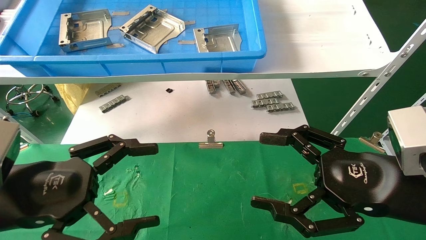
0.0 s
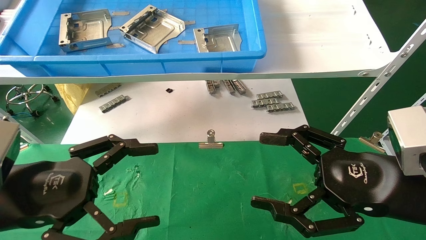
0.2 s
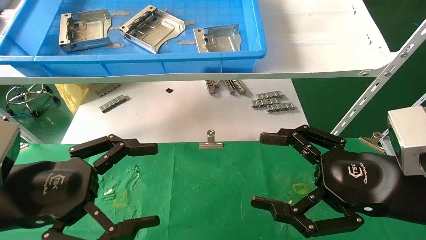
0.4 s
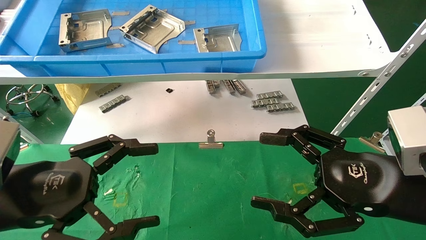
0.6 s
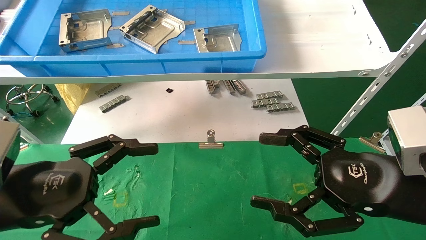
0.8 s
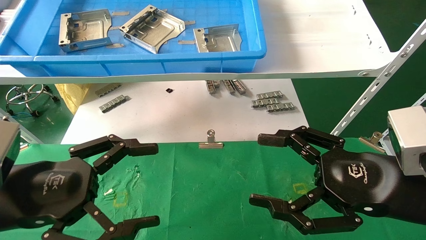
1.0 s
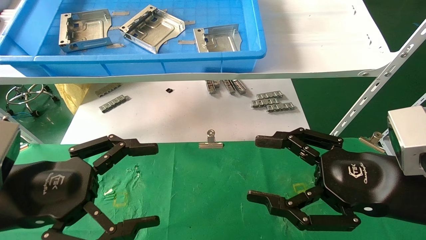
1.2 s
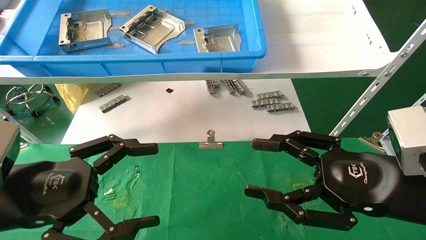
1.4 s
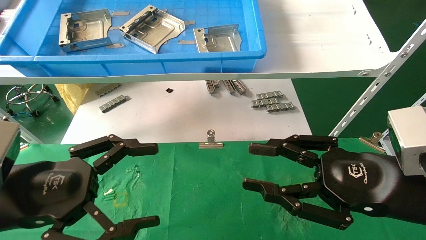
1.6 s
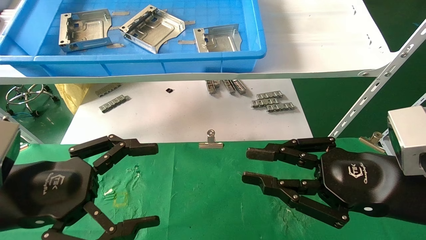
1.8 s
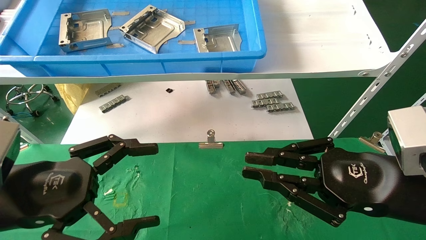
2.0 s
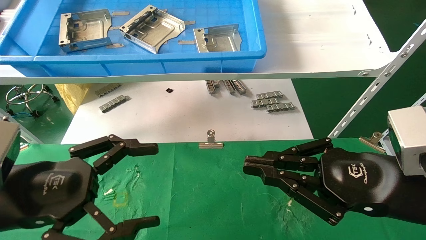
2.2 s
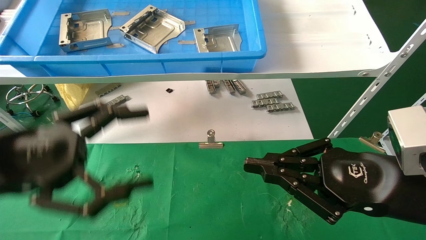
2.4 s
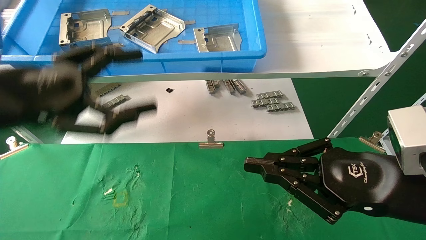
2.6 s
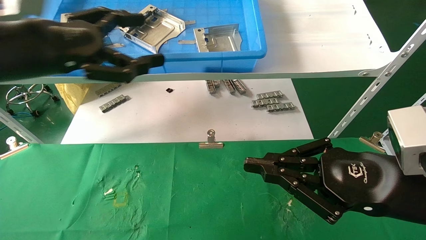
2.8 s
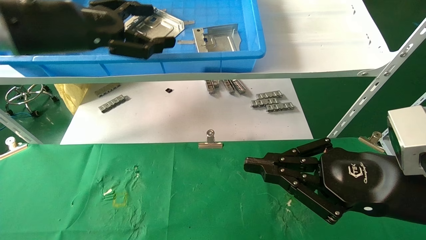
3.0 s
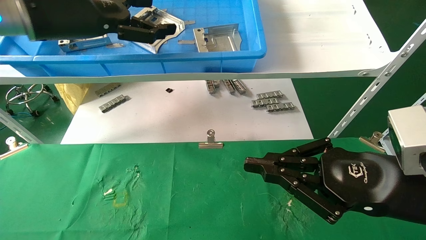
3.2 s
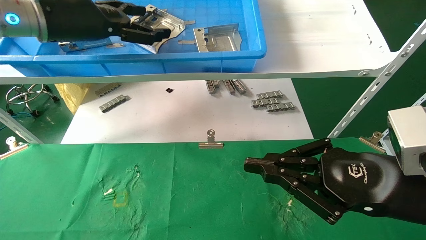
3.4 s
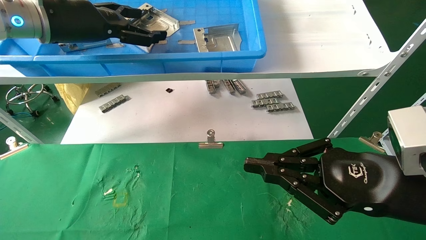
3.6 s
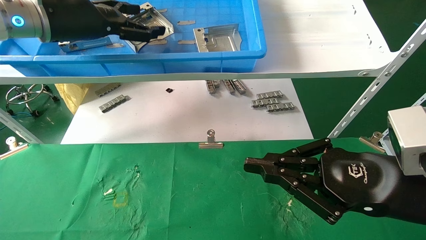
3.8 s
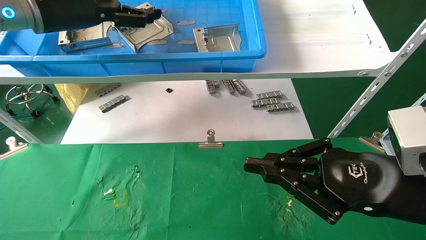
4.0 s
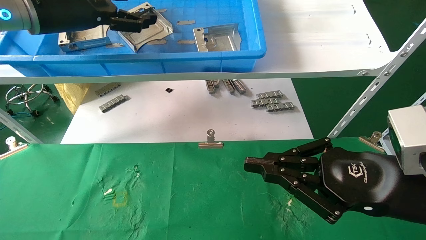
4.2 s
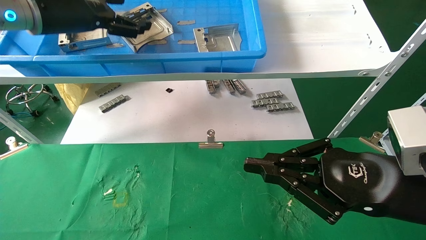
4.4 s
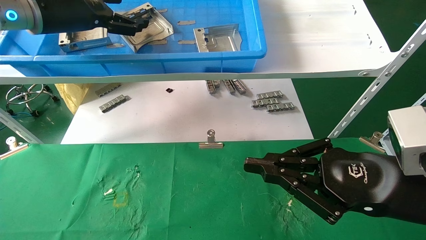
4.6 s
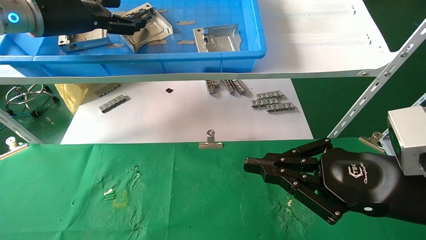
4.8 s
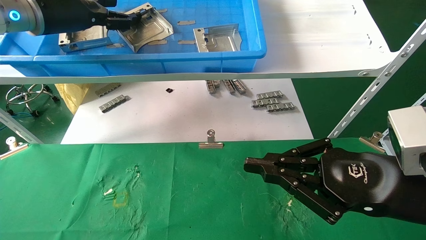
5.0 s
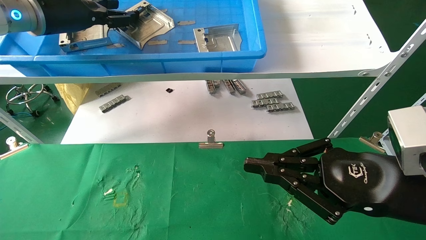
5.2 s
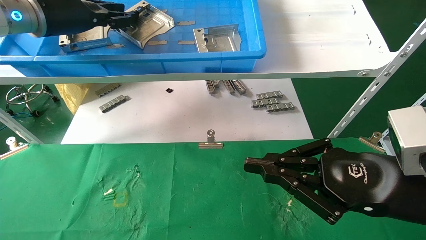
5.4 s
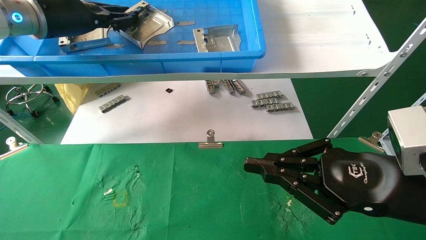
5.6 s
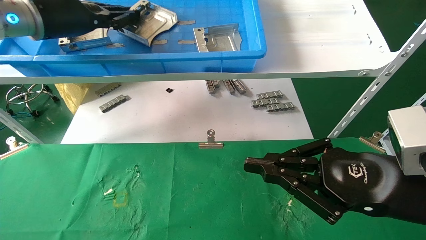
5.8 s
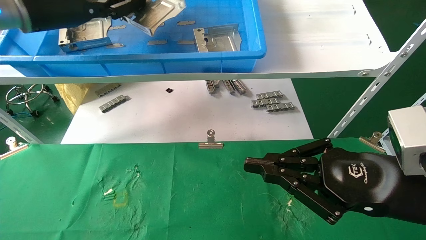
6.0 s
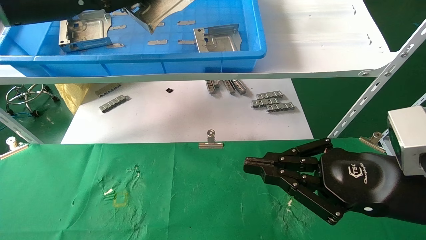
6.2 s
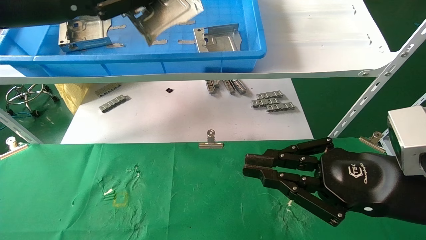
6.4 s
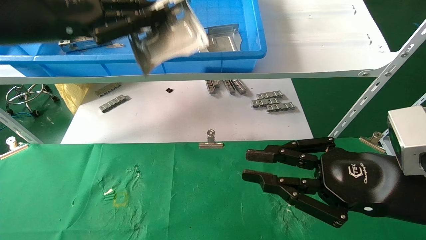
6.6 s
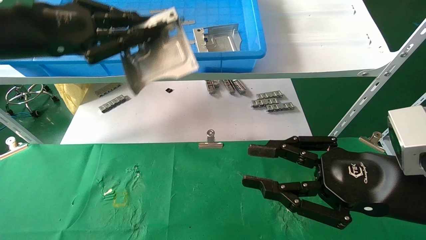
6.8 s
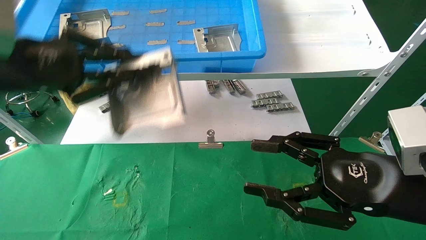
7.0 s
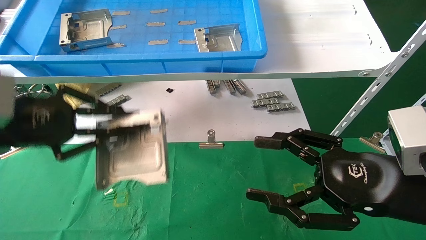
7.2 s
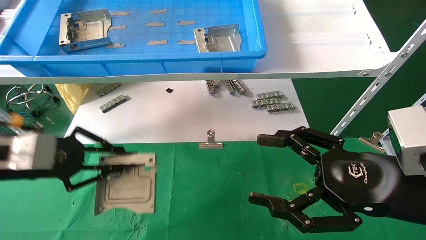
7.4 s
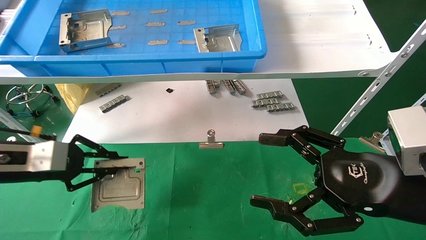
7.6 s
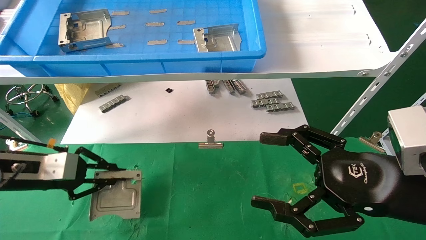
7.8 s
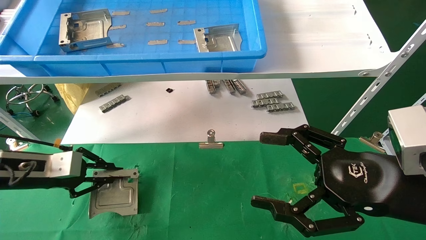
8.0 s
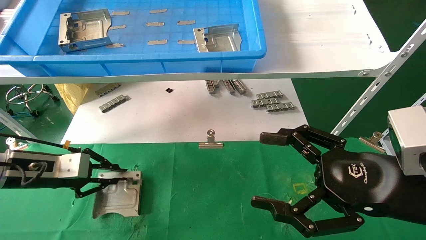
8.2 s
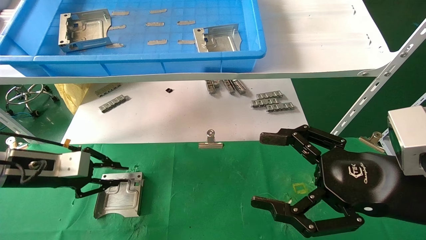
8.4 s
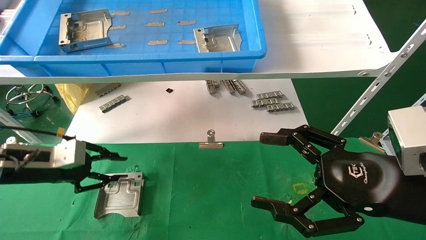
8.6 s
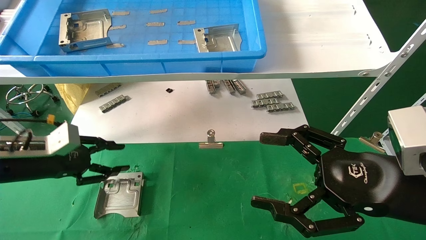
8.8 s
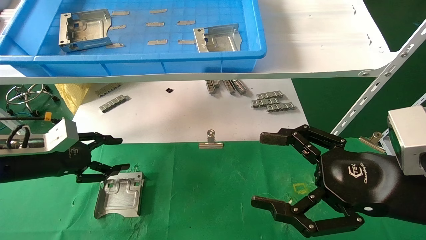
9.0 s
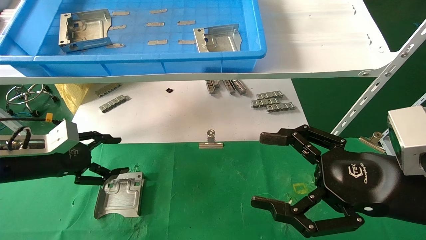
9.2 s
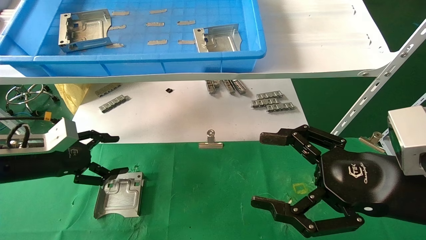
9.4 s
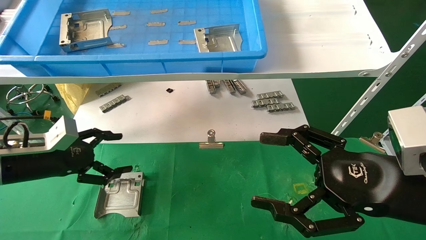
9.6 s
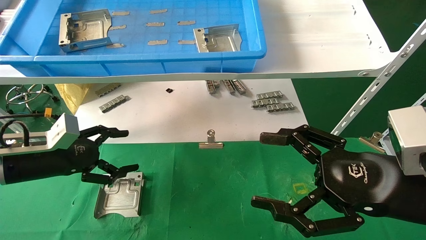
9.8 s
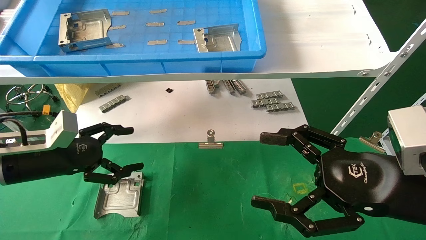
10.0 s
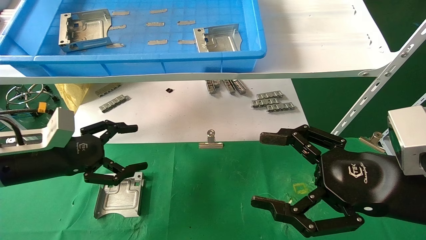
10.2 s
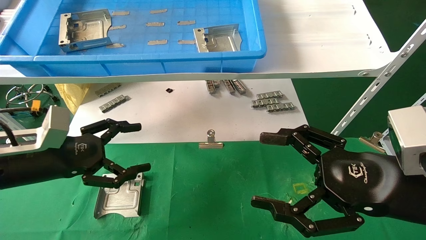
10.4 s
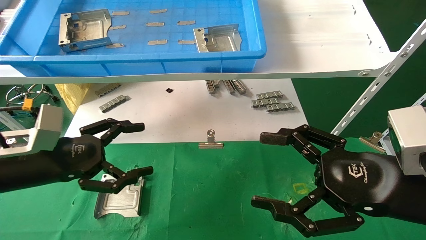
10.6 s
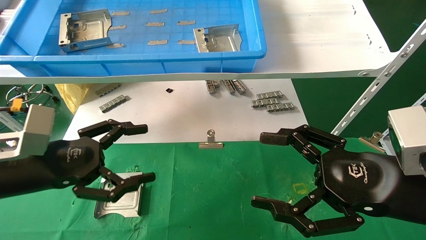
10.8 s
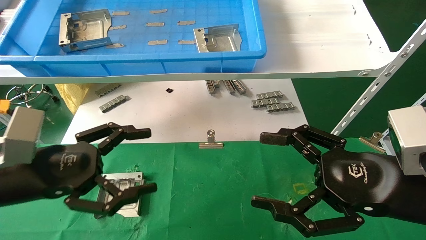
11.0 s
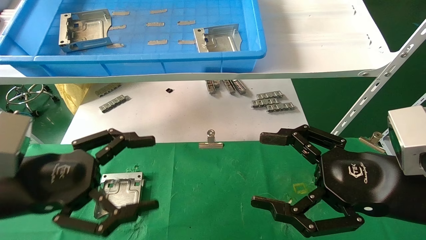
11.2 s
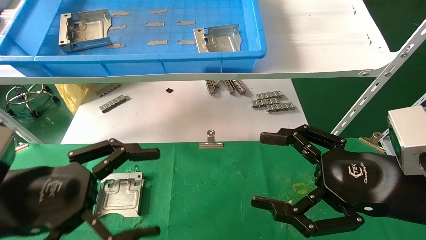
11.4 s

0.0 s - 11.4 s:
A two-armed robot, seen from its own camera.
Task of the whole recording: use the mechanical arm to pick up the parts and place them on the table.
Step, 2.4 s - 5.8 s: Pick up the hard drive bracket from the feeding area.
Step, 6.0 s - 8.6 s: Place the hard drive bracket into the box.
0.0 s - 1.4 s: Both grippers stay about where they are.
1.4 s - 2.8 s: The right gripper closes. Meanwhile the left gripper shifts roughly 20 cm upward and forward.
2.8 s - 4.2 s: The left gripper moves forward and upward, approximately 15 cm.
4.2 s - 5.6 s: The left gripper closes.
5.6 s - 7.2 s: The right gripper opens up; the left gripper heads backward and downward, covering approximately 20 cm.
7.2 s - 8.6 s: The right gripper opens its fingers. The left gripper heads downward and forward, covering about 15 cm.
8.6 s - 10.0 s: The left gripper opens its fingers.
10.0 s - 11.4 s: The left gripper travels backward and to the right by approximately 15 cm.

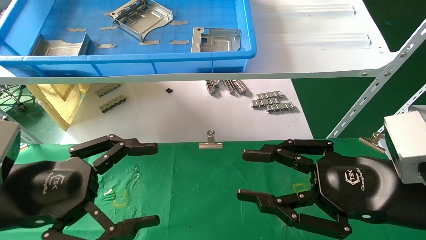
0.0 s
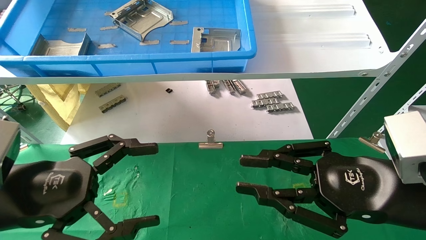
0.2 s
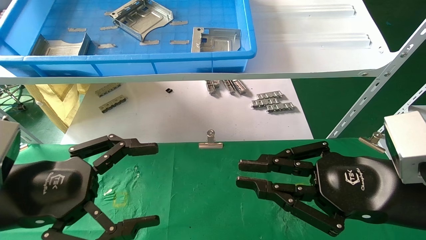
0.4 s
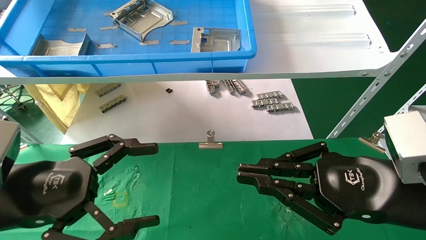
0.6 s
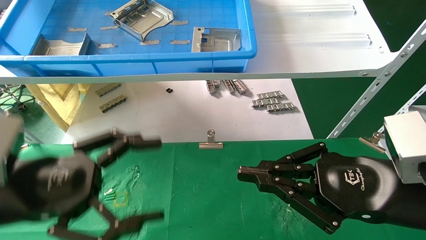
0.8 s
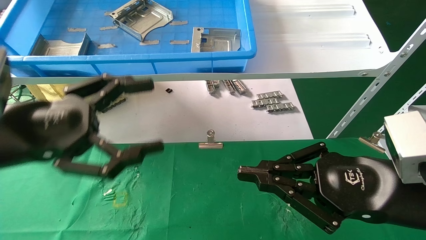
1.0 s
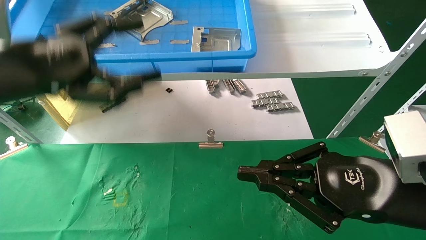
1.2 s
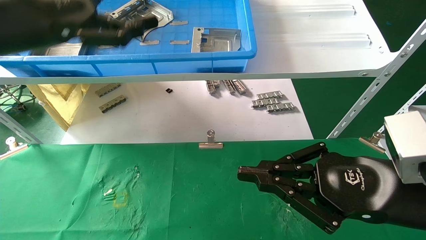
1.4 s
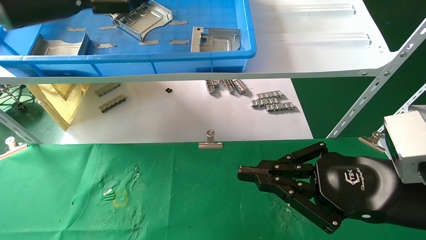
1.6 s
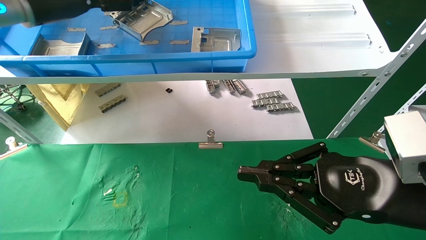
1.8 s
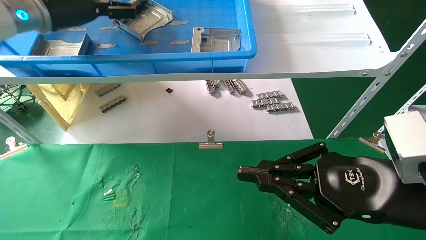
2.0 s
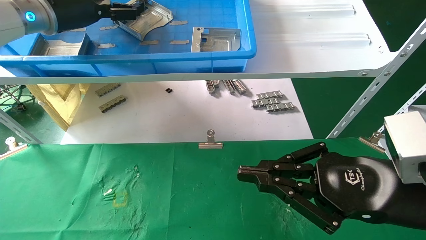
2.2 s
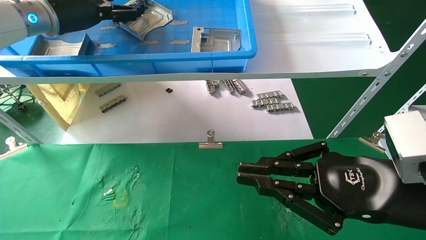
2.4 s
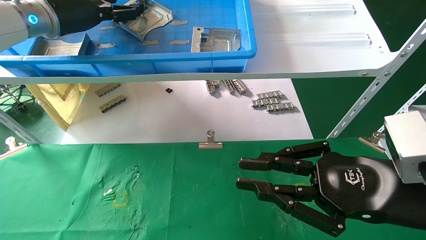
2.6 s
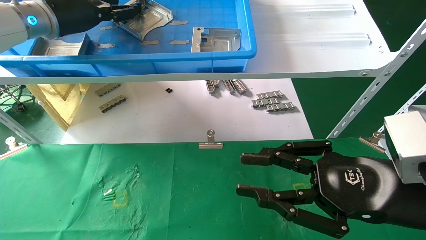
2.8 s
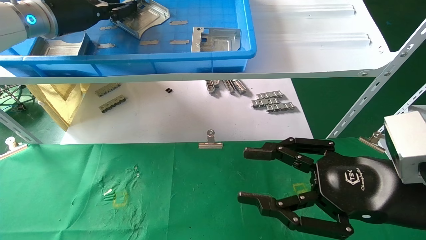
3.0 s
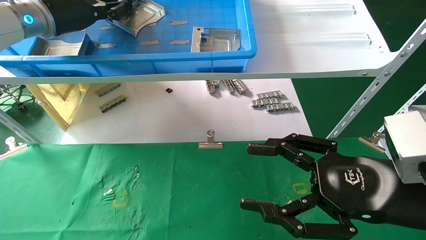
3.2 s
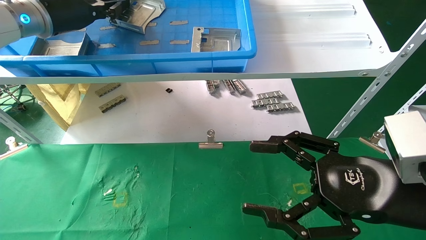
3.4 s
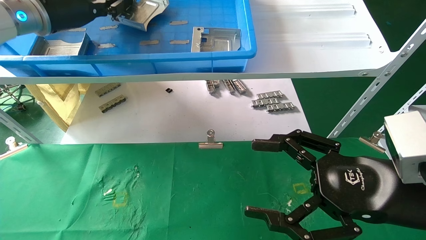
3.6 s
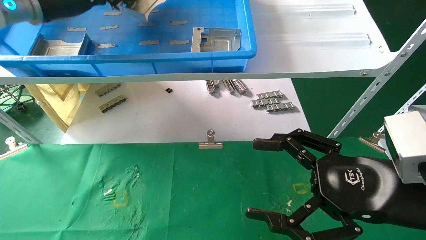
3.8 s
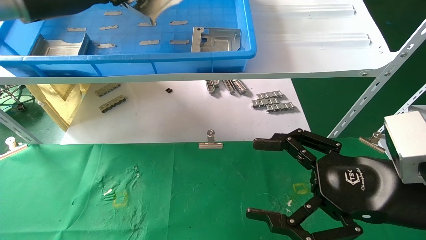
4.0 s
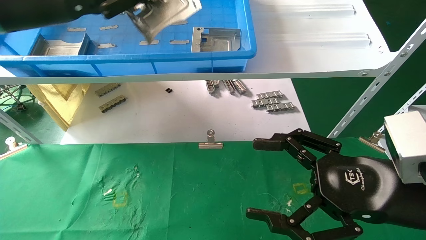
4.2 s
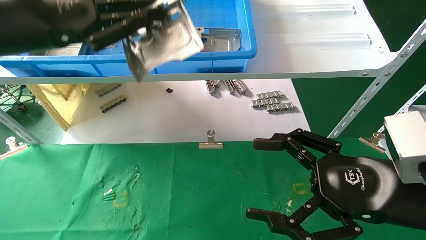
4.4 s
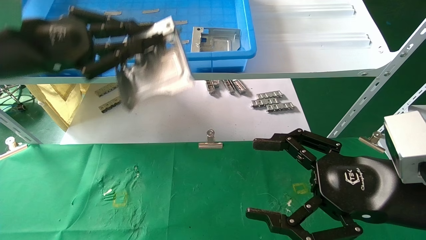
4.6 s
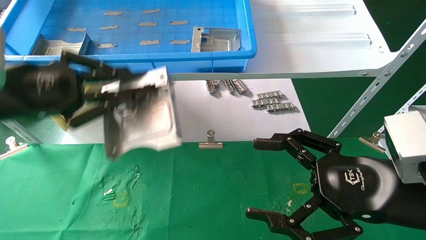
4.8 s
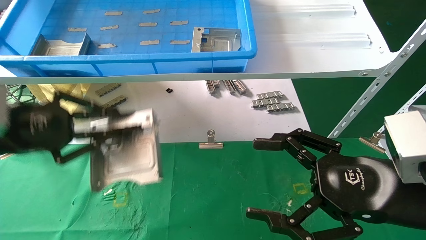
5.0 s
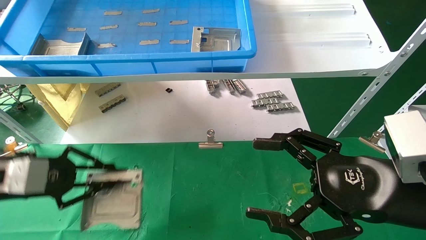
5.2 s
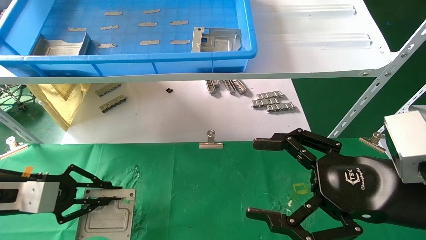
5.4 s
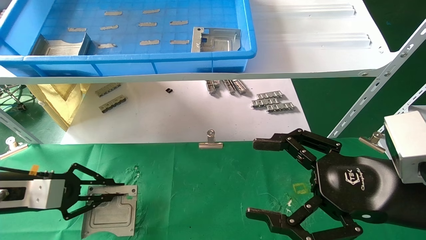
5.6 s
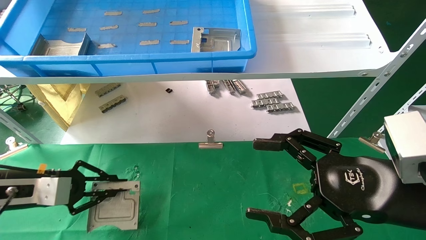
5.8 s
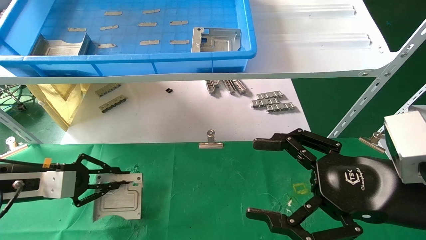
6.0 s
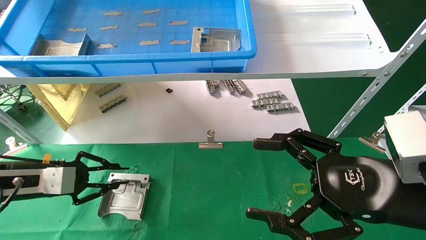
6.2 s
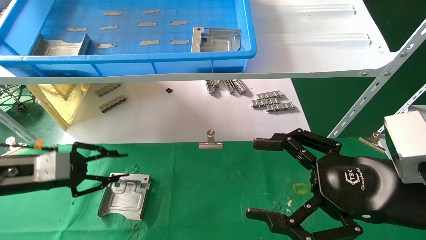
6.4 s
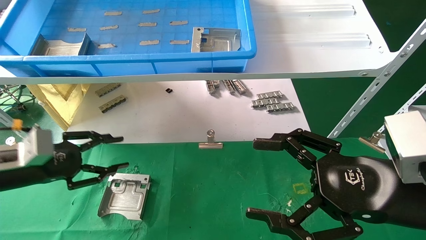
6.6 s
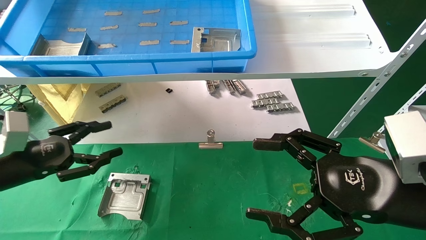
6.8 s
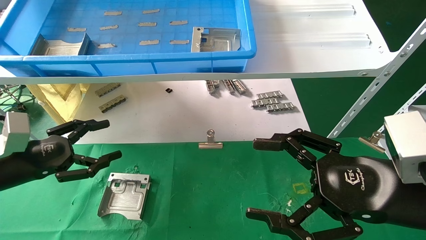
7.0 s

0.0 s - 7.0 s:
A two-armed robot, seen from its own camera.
Task of the whole recording: use the mechanical arm to pick up the parts and place them on the table.
Step, 1.2 s - 3.8 s: Pick up the hard drive bracket from the feeding area.
Step, 4.0 s - 6.2 s: Place the hard drive bracket into the box.
0.0 s - 1.4 s: The left gripper heads upward and forward, covering some 20 cm; the right gripper closes.
1.4 s - 2.8 s: The left gripper heads forward, covering approximately 10 cm.
2.8 s - 4.2 s: The right gripper opens up. The left gripper moves backward, approximately 10 cm, and closes its fingers.
4.2 s - 5.6 s: The left gripper travels downward by about 25 cm.
5.6 s - 7.0 s: The left gripper opens up.
